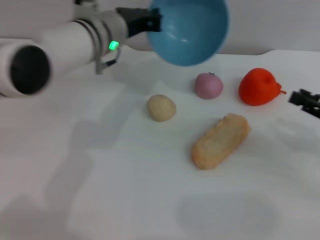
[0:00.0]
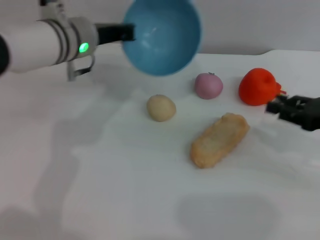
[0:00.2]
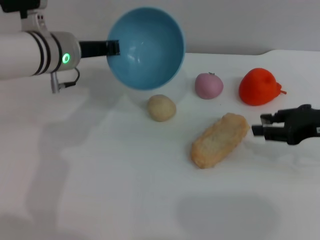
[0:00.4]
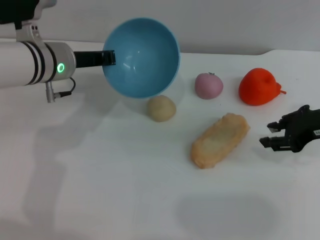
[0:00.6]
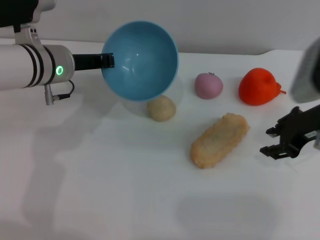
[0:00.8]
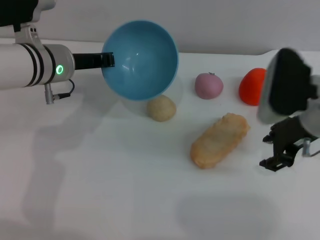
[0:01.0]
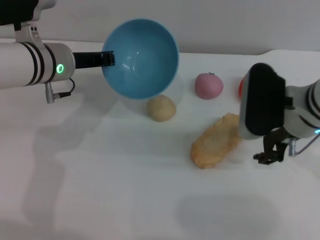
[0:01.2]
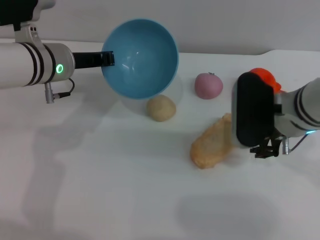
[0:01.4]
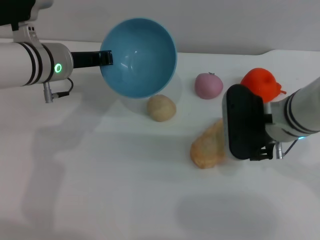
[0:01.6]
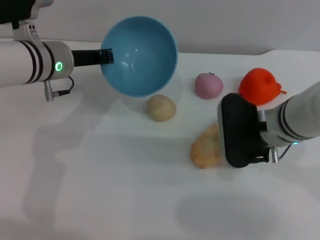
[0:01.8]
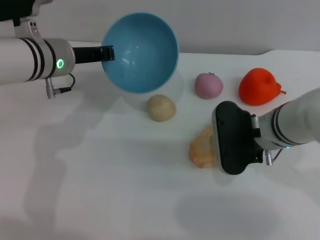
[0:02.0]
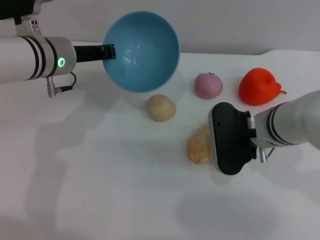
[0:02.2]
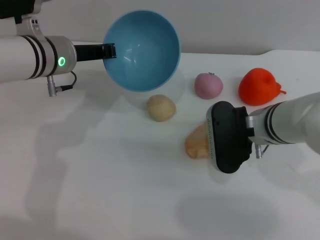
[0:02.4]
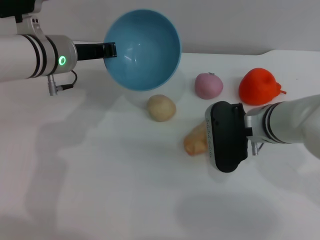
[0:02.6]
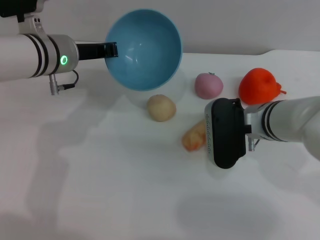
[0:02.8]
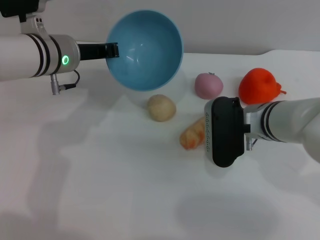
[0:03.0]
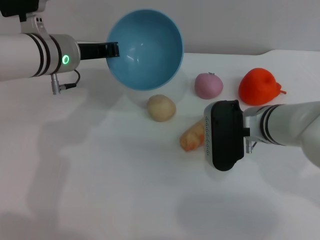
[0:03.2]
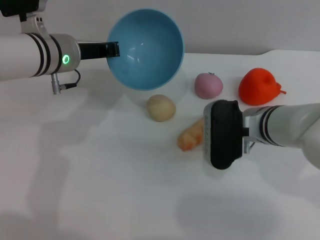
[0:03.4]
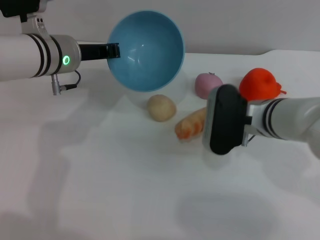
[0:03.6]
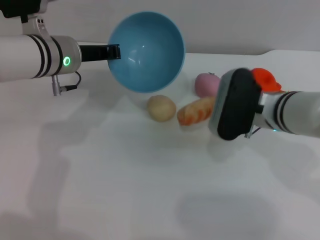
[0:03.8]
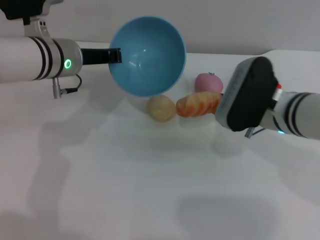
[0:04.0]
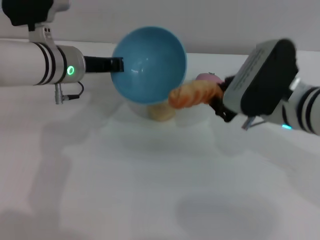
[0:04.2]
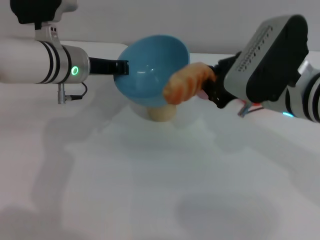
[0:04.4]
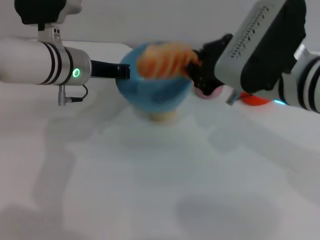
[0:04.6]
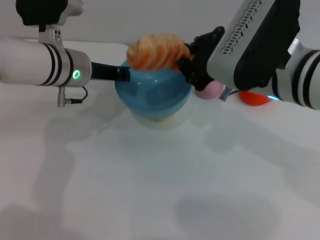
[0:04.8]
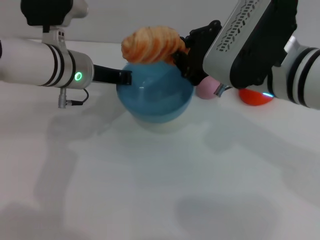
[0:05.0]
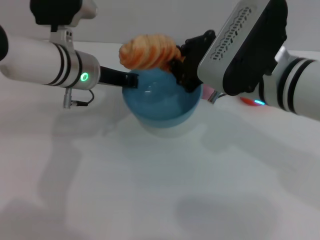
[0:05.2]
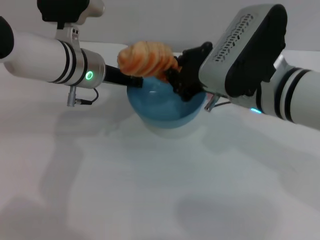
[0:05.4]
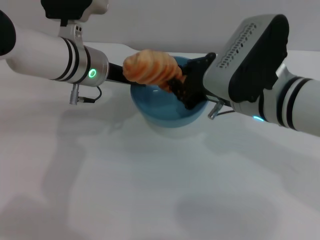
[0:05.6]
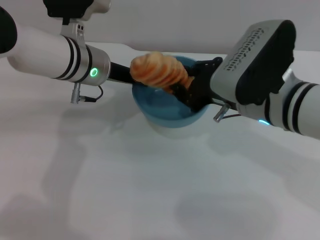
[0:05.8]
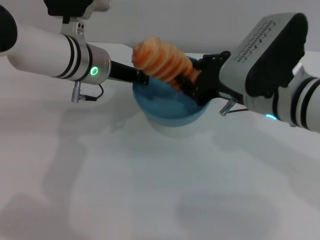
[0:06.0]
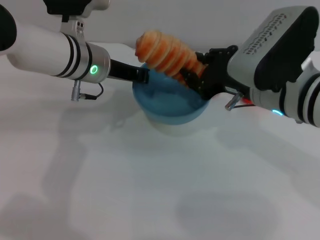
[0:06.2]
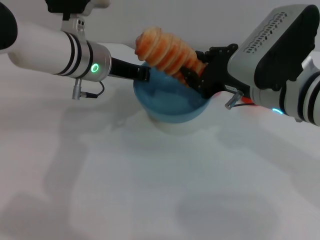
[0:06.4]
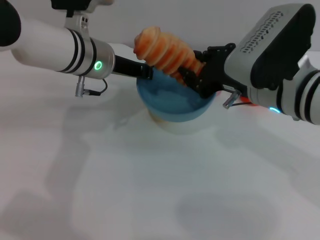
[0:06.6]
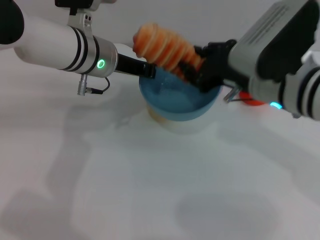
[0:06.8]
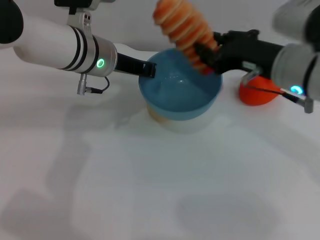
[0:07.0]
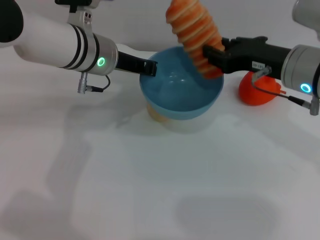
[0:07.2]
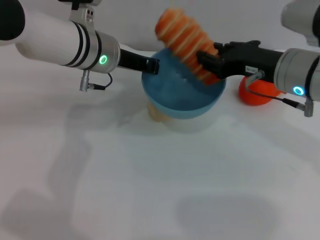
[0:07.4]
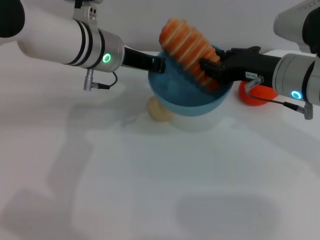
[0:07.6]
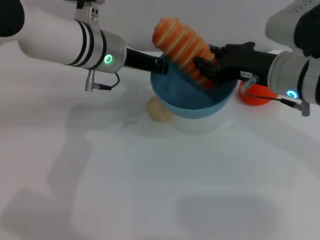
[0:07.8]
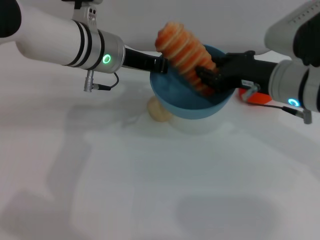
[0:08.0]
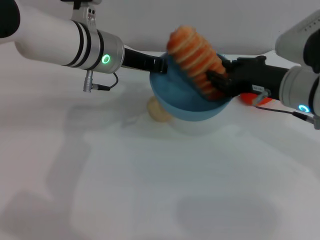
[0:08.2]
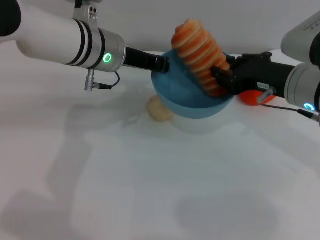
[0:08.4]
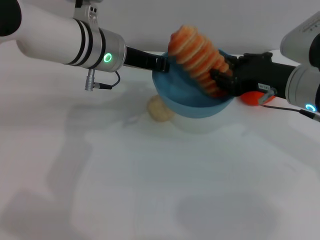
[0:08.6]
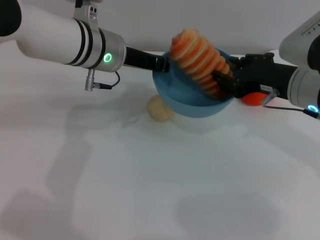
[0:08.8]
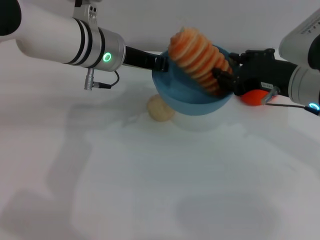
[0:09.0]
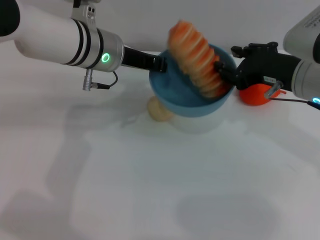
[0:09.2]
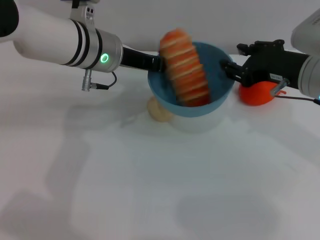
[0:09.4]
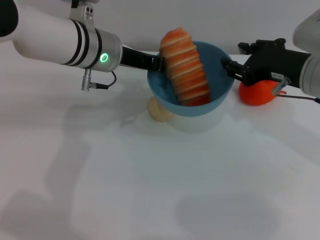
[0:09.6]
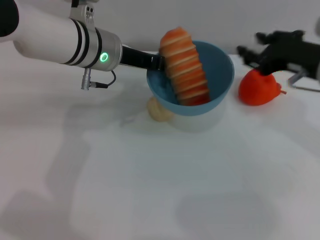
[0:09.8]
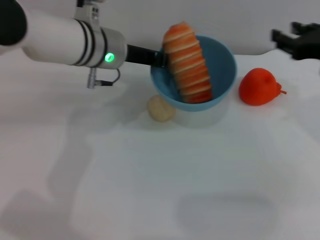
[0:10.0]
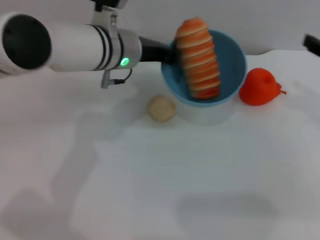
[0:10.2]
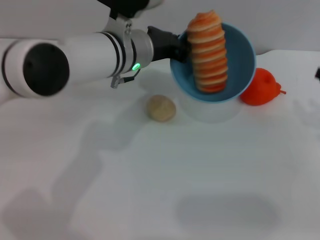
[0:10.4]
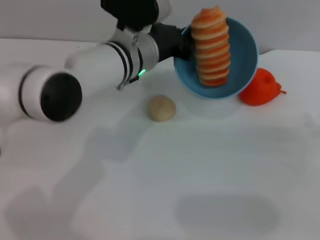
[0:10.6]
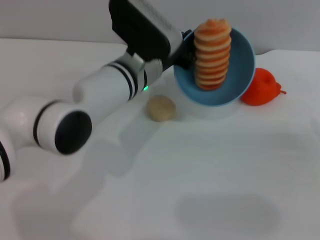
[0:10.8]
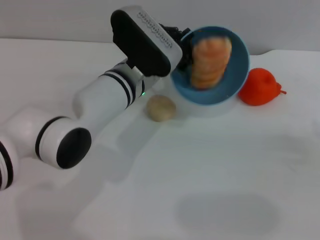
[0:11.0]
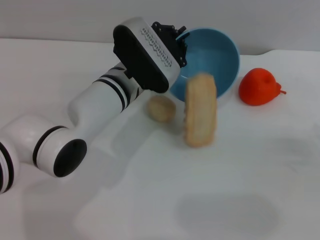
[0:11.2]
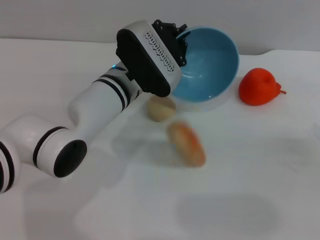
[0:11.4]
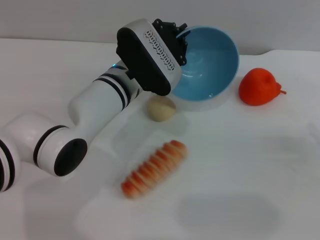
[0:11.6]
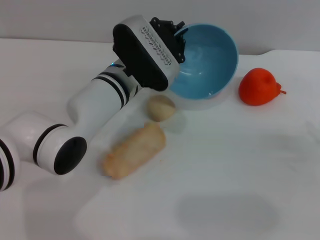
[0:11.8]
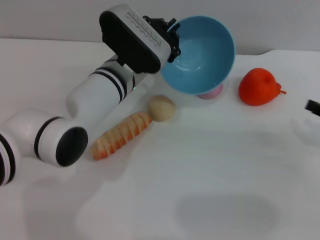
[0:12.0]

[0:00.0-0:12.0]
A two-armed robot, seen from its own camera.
Task of the whole recording: put the bread into the blue bowl and pour it out repeatedly.
Step, 0:00.0 to 0:04.4: Pick up the bread with the right gripper.
Step, 0:04.6 to 0:09.4: Place the bread into the bowl.
0:00.0 to 0:01.6: The left gripper shifts about 10 cm to the left, while the right gripper is displaced to the left by roughly 20 cm.
0:01.6 to 0:03.0: The grippers make only small movements.
0:03.0 to 0:04.4: The right gripper moves upward, some 10 cm, and closes up.
0:06.0 to 0:07.6: The right gripper moves approximately 5 cm.
0:07.6 to 0:09.0: The grippers make only small movements.
0:09.0 to 0:10.4: The right gripper is displaced to the right by about 15 cm.
0:10.4 to 0:12.0: The left gripper goes about 5 cm downward.

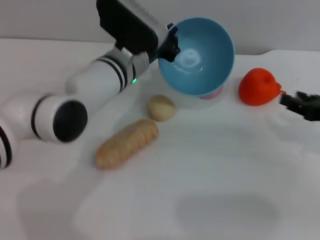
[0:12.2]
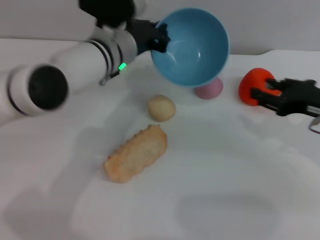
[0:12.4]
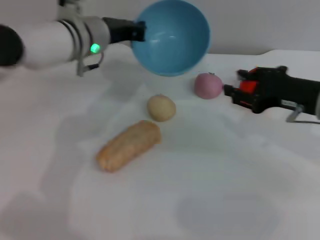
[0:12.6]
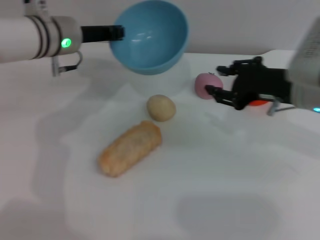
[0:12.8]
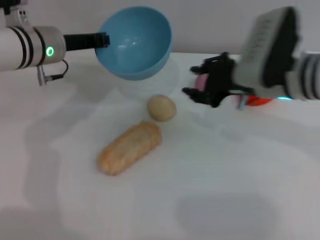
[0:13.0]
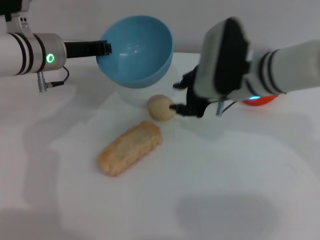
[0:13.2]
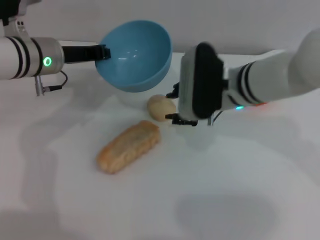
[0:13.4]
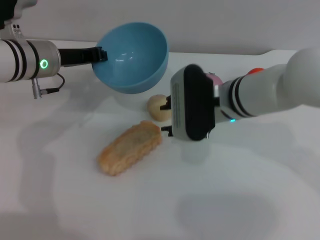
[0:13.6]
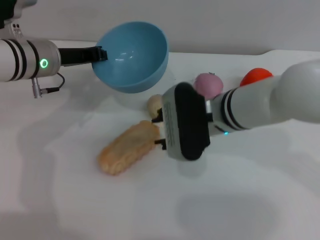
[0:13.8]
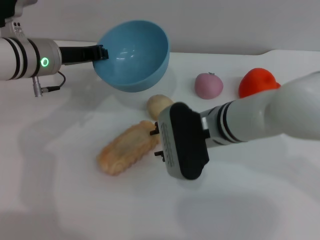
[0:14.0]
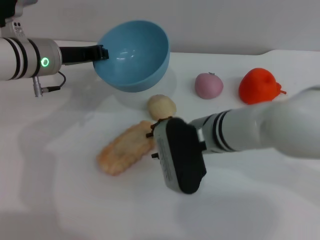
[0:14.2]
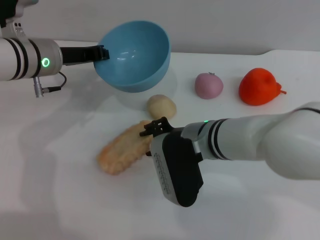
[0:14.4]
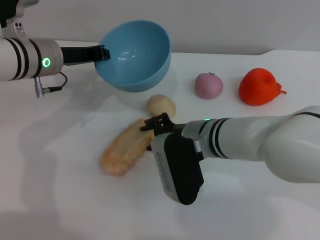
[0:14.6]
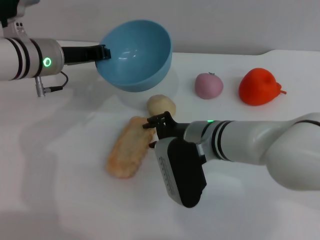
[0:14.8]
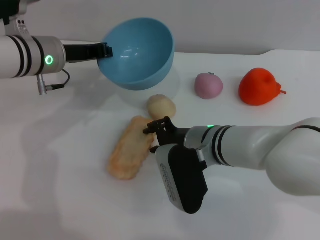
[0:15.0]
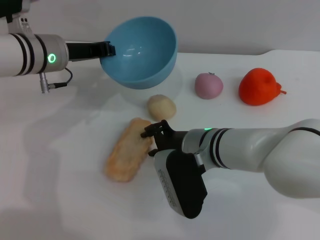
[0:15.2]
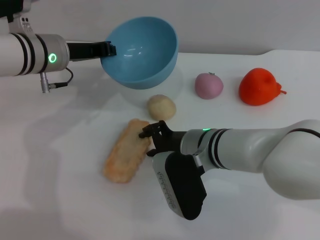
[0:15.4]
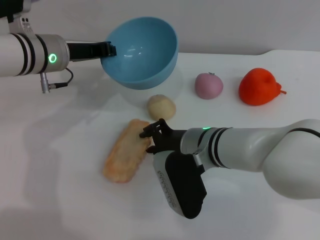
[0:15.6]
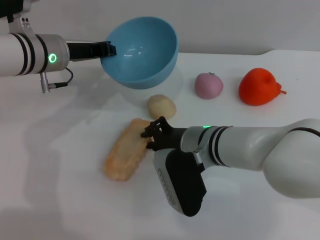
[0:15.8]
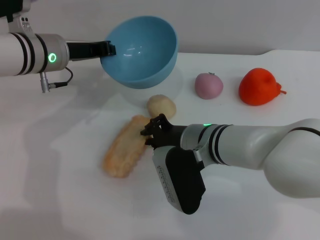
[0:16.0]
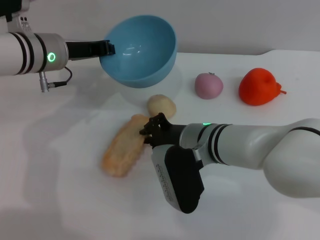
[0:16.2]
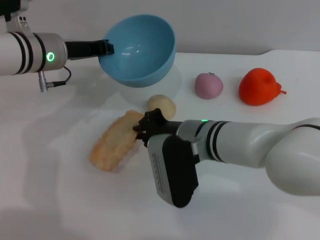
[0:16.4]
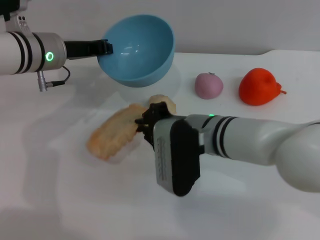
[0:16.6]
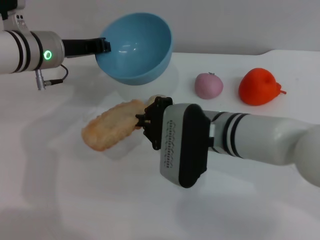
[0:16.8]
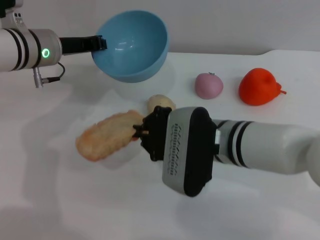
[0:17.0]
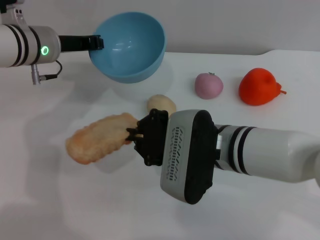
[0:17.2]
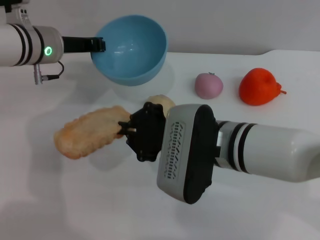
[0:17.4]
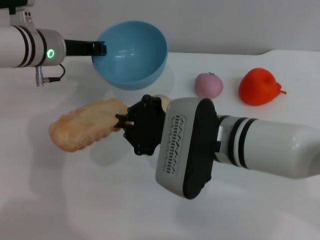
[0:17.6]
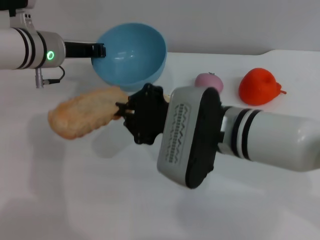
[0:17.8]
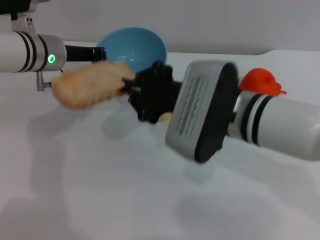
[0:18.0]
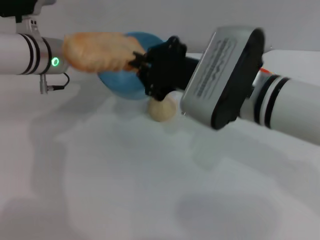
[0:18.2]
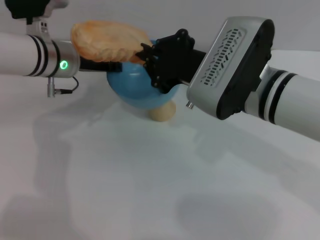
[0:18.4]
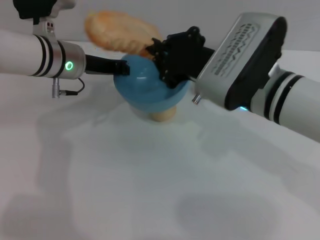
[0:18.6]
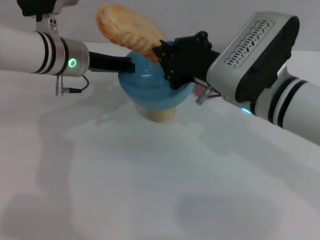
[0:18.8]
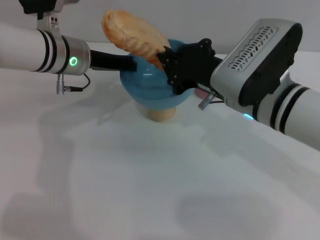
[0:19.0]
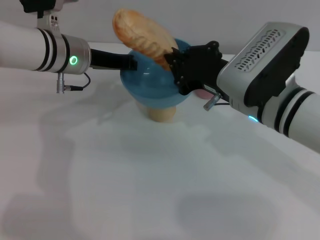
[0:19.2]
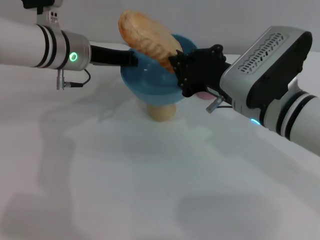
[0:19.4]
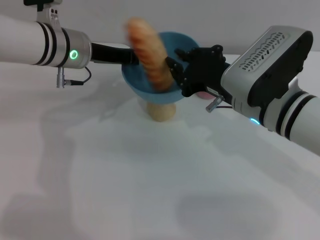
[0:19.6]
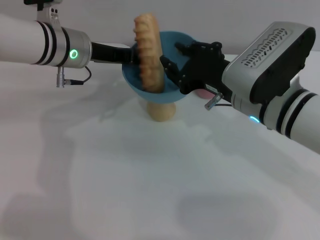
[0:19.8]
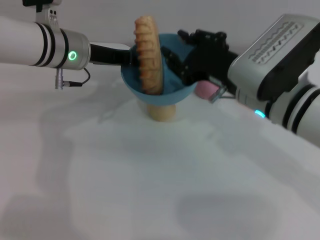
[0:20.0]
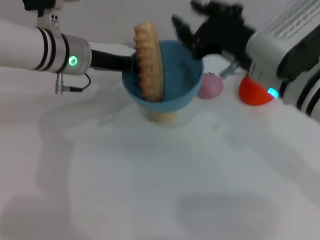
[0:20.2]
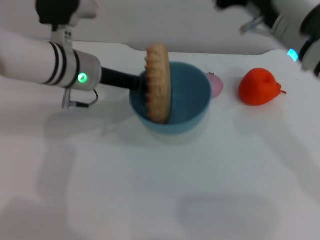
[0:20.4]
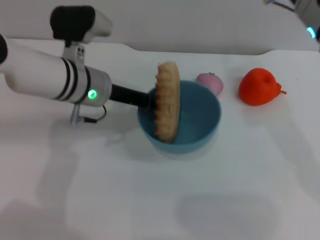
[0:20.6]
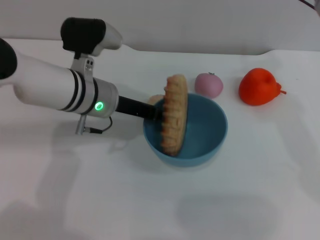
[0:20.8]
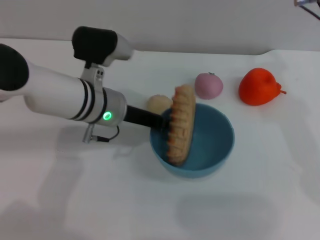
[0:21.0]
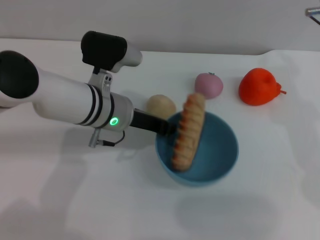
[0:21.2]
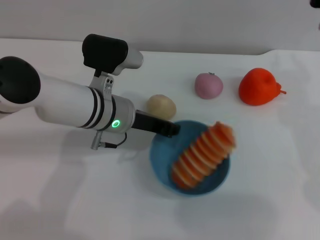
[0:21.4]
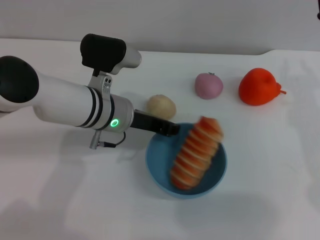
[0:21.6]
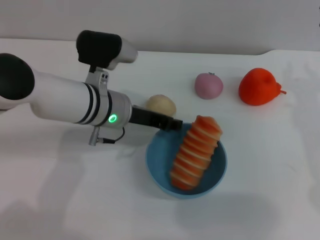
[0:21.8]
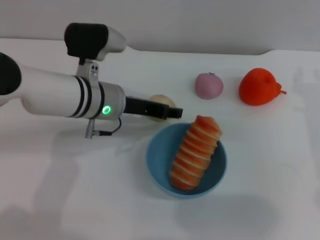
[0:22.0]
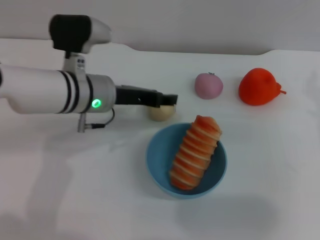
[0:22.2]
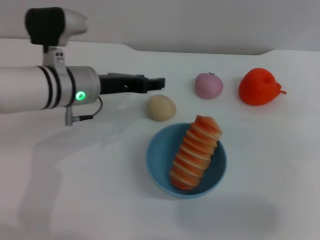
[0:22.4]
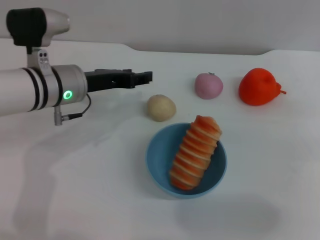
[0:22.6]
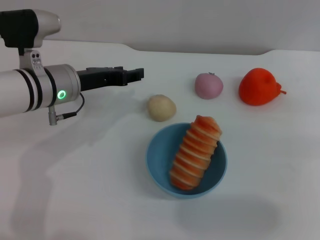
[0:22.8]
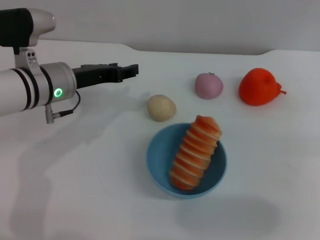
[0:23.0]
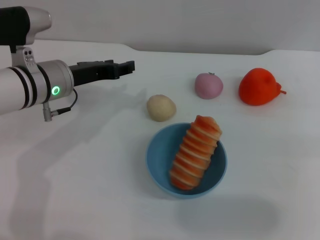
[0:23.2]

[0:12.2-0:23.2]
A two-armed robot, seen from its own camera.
Task of the whole recording: put the bread into the blue bowl and pour it out repeatedly.
Step, 0:12.4 to 0:17.0: Pick up the bread with the right gripper.
Step, 0:17.4 to 0:20.0: Place the bread into the bowl.
Step, 0:20.2 to 0:22.2: Place the bowl on the table.
0:12.2 to 0:13.8: The right gripper shifts approximately 25 cm to the left. Meanwhile the left gripper heads to the left, covering about 15 cm.
0:13.8 to 0:15.4: The right gripper moves approximately 5 cm.
0:15.4 to 0:17.0: The right gripper shifts by roughly 5 cm, and closes up.
0:17.0 to 0:18.4: The right gripper moves upward, approximately 5 cm.
0:18.4 to 0:20.0: The right gripper opens.
0:20.0 to 0:21.6: The left gripper moves to the right, backward and downward, roughly 10 cm, while the right gripper heads to the right, covering approximately 10 cm.
0:21.6 to 0:23.2: The left gripper travels to the left by approximately 10 cm, and opens up. The right gripper shifts about 10 cm to the right.
